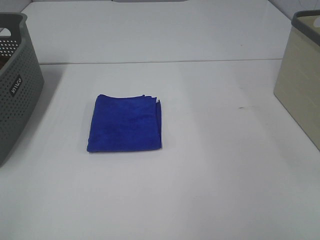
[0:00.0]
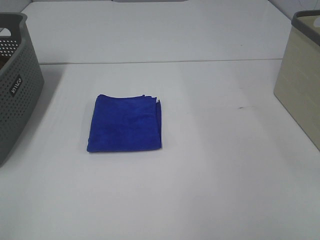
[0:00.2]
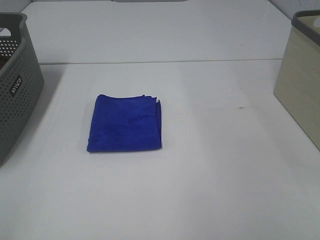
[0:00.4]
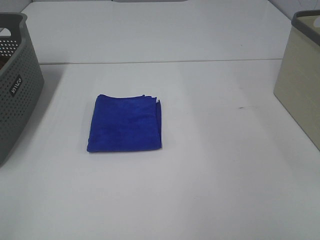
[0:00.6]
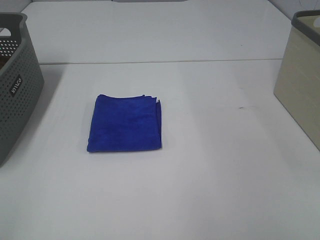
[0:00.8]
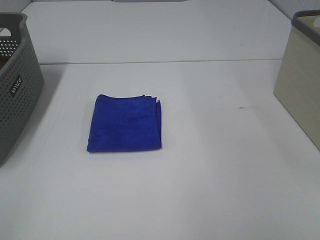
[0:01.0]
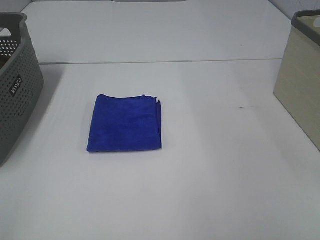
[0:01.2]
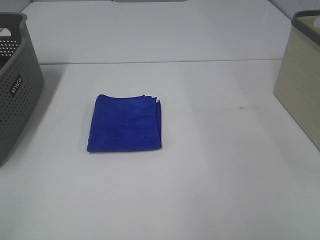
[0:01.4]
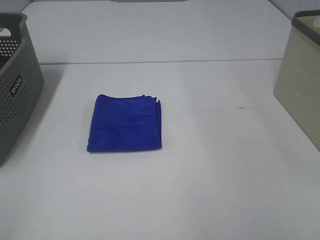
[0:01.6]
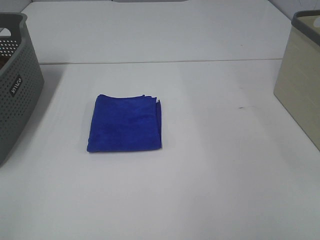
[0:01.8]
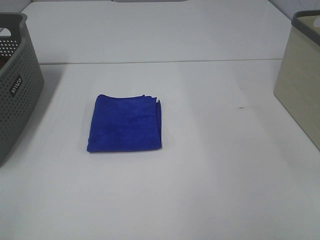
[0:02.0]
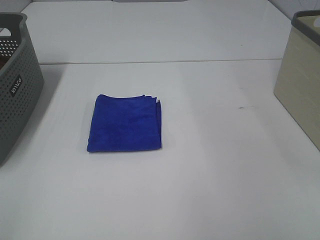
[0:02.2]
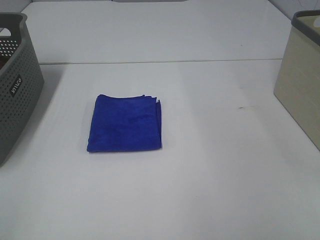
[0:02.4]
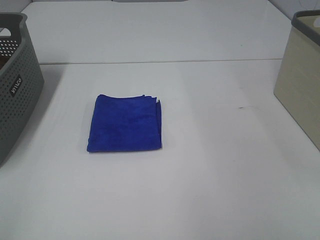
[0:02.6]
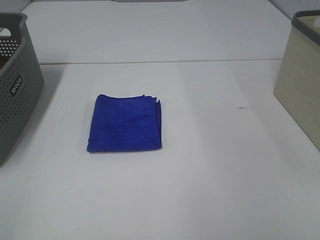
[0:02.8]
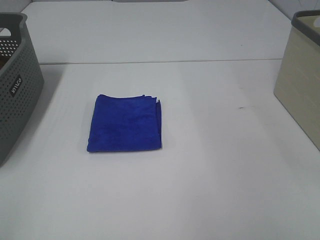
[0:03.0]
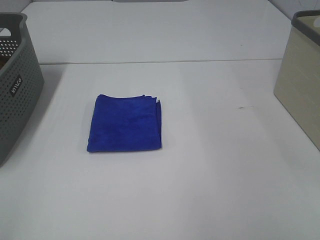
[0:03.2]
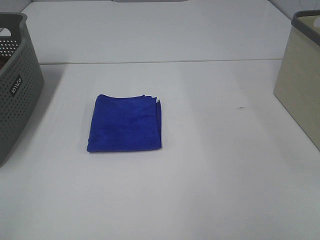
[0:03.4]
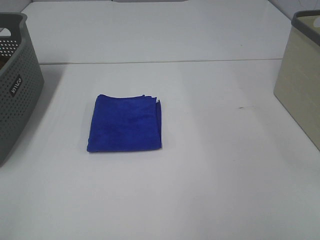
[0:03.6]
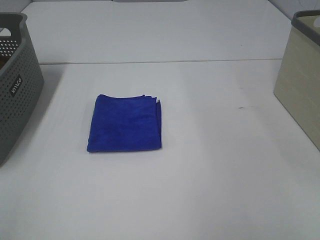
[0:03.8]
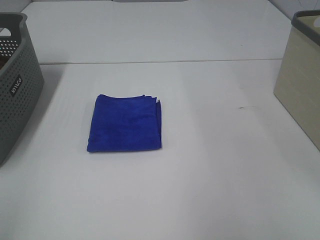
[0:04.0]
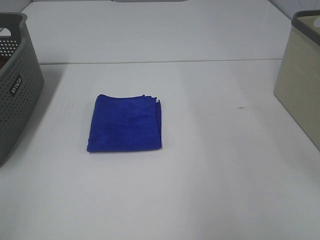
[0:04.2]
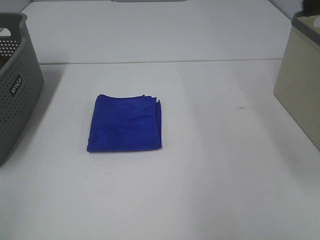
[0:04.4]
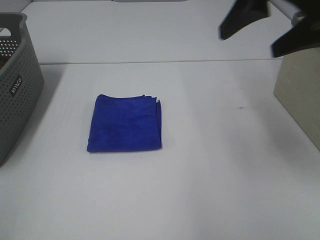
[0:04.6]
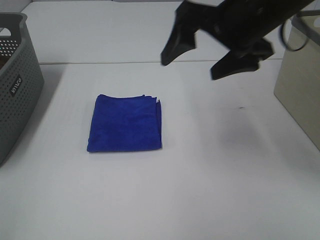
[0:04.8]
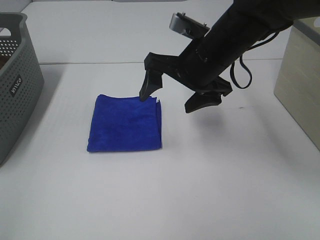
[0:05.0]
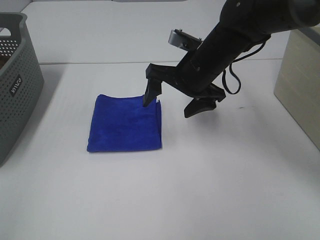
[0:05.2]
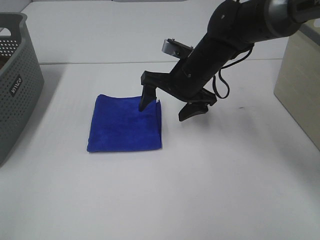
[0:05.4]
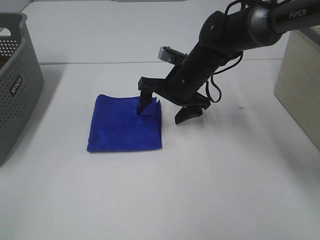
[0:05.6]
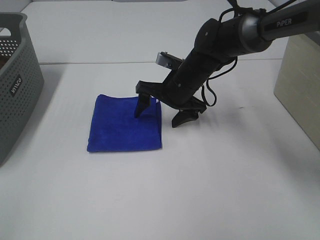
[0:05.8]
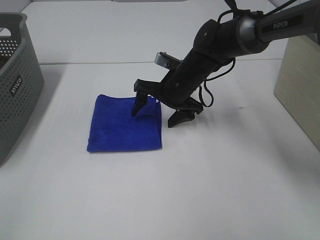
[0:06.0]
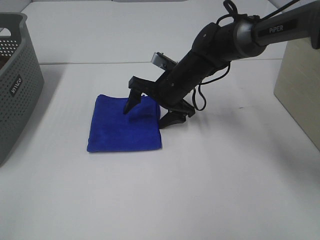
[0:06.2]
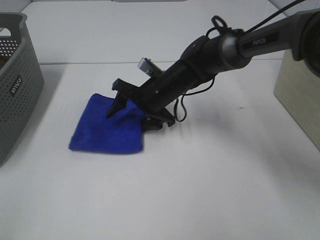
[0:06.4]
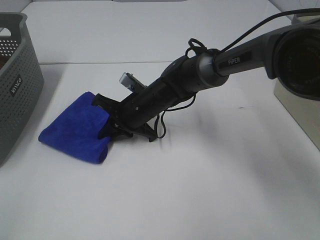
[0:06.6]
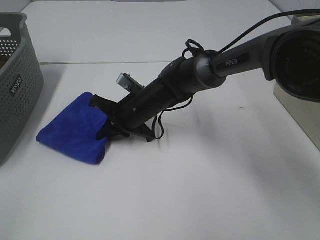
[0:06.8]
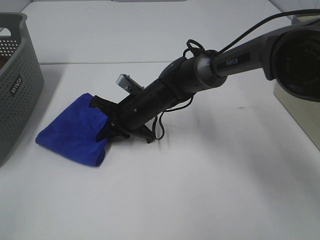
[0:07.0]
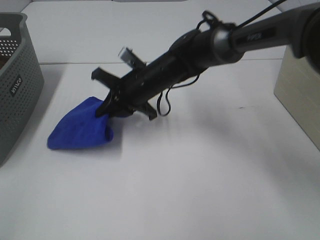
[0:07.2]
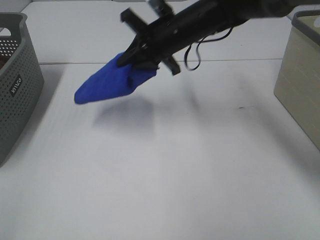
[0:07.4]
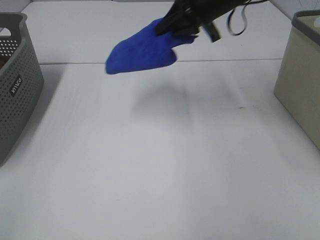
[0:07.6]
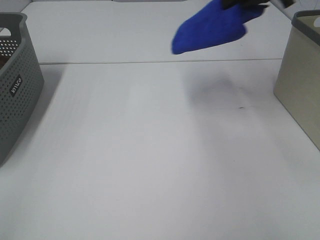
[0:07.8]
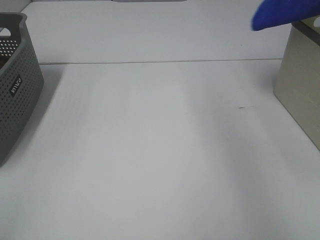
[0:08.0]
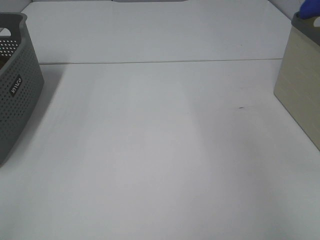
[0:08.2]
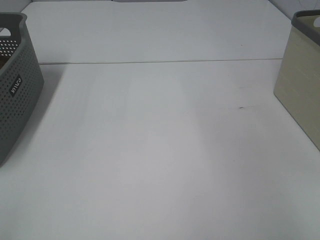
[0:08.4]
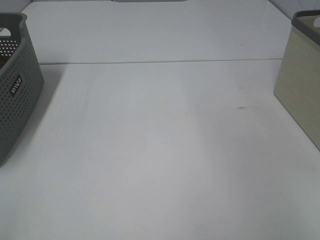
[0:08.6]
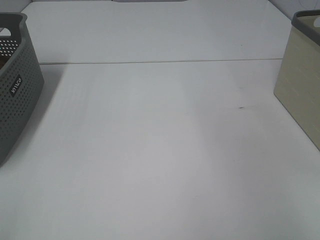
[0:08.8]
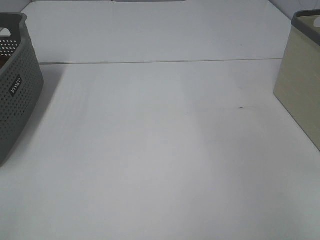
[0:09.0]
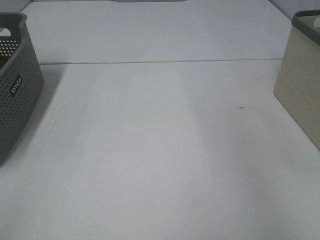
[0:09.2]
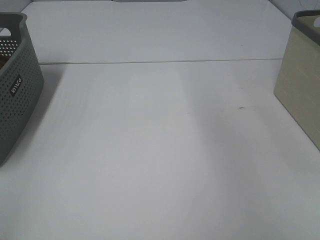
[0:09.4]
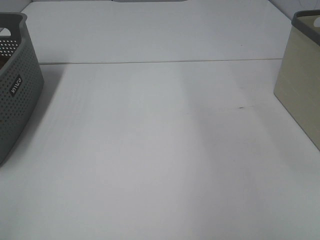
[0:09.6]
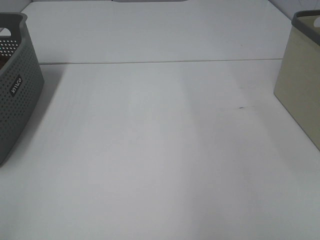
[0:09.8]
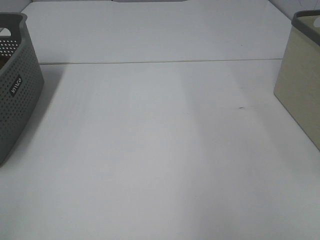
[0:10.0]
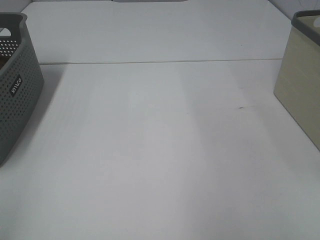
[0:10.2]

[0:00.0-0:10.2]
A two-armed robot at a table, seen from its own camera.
Step, 0:00.0 to 0:06.6: Right hand: grab the folded blue towel.
Step, 0:06.8 to 0:09.0: Right hand: place the blue towel in right basket.
0:00.0 to 0:03.0: Both grippers stay put.
0:04.4 to 0:05.8: The right gripper is displaced downward, to the left and forward by roughly 35 cm.
0:05.8 to 0:07.2: The right gripper travels to the left by some 5 cm, and closes its fingers.
0:07.2 to 0:08.8: The right gripper moves to the right and upward, some 50 cm, and opens up.

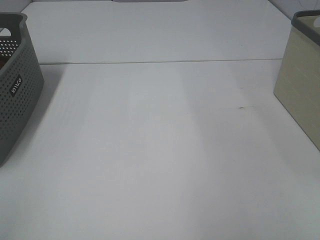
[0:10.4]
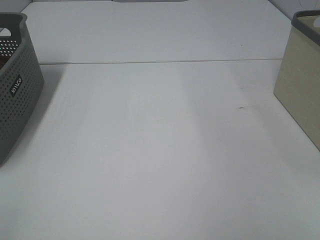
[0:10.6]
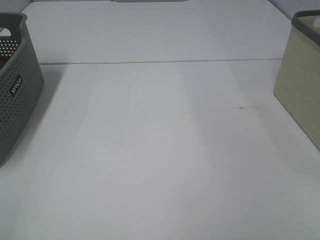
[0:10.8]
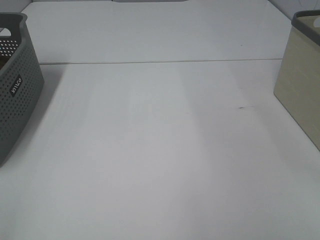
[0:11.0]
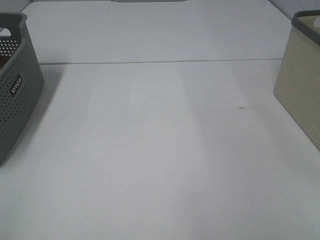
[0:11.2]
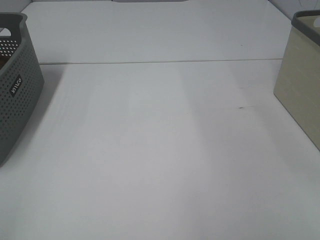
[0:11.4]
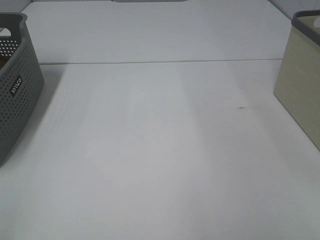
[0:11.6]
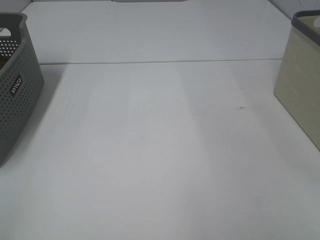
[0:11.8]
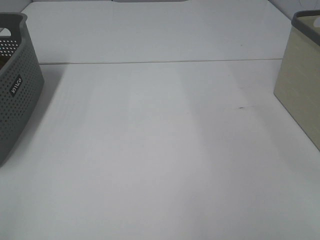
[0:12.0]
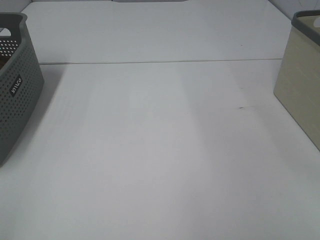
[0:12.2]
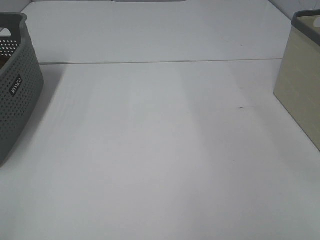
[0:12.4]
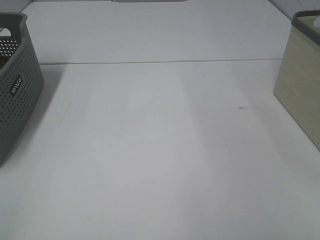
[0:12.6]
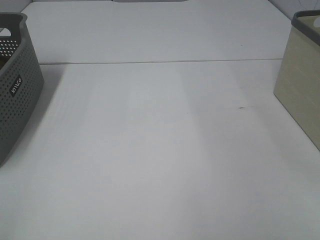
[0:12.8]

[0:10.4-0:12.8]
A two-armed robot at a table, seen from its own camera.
0:11.6 to 0:12.8: Both grippers stay about where they are.

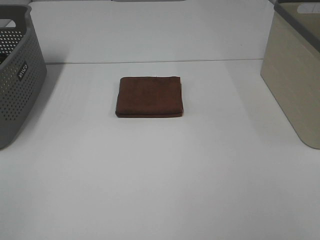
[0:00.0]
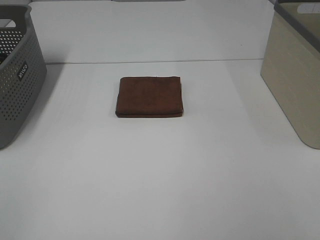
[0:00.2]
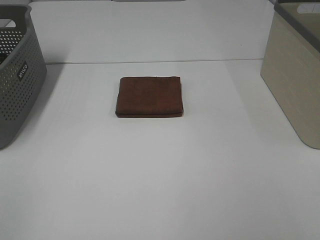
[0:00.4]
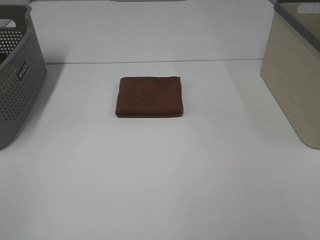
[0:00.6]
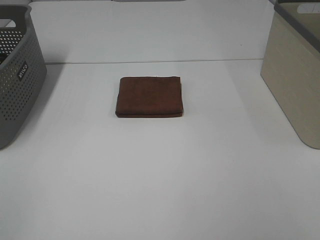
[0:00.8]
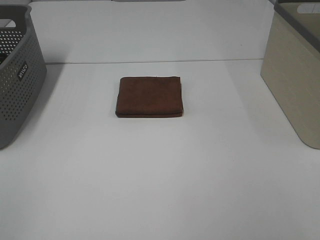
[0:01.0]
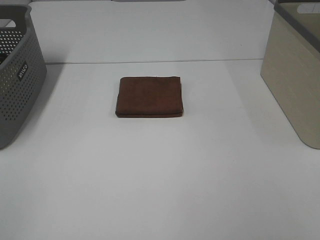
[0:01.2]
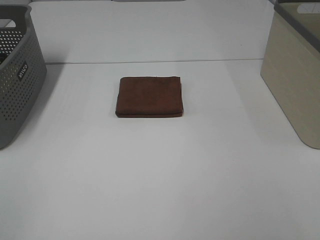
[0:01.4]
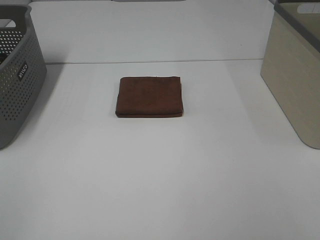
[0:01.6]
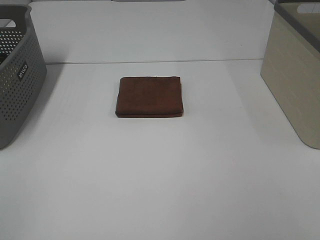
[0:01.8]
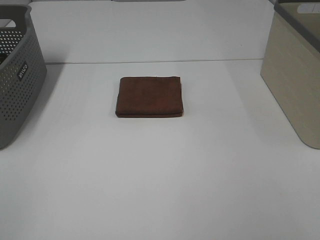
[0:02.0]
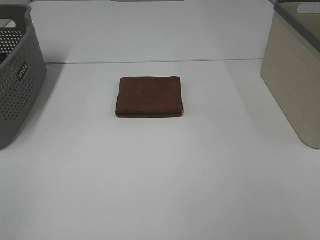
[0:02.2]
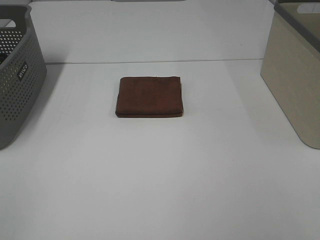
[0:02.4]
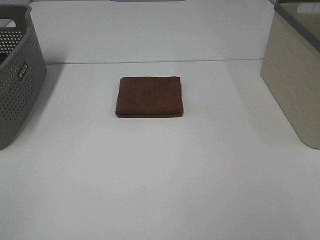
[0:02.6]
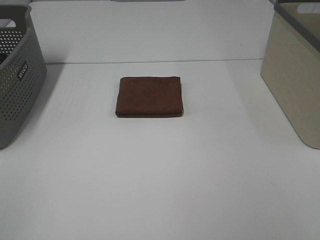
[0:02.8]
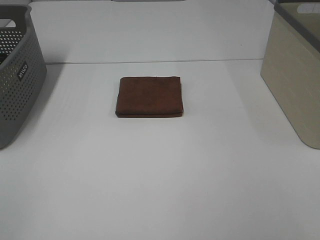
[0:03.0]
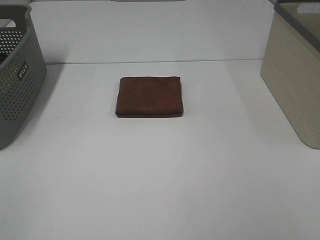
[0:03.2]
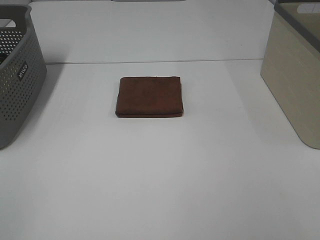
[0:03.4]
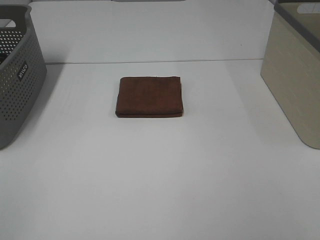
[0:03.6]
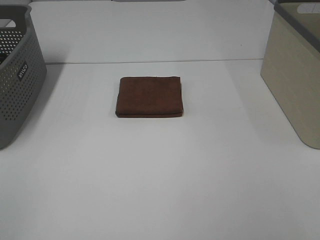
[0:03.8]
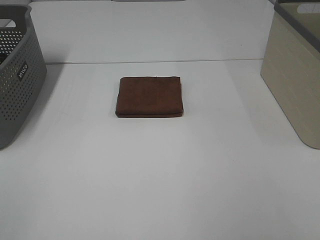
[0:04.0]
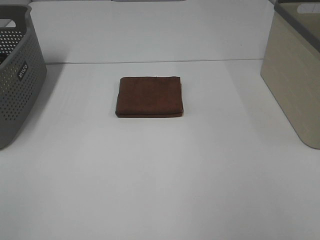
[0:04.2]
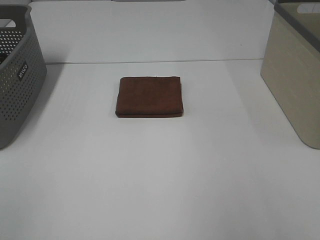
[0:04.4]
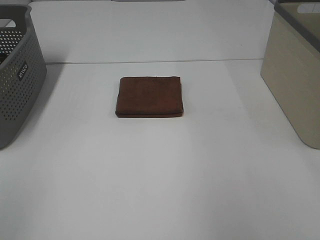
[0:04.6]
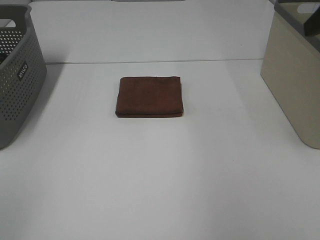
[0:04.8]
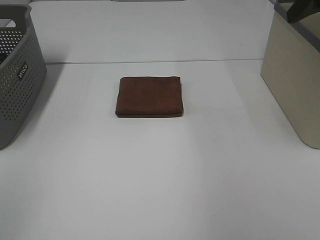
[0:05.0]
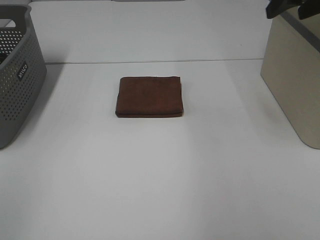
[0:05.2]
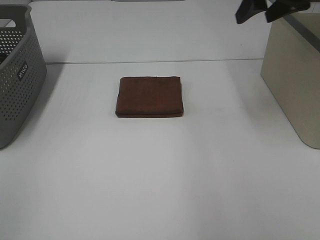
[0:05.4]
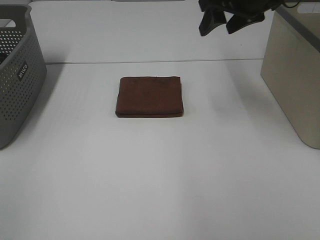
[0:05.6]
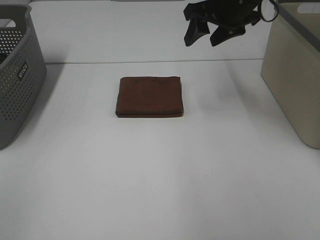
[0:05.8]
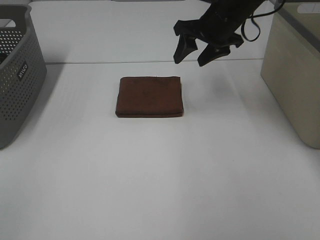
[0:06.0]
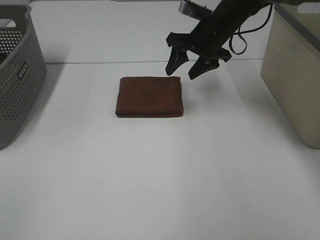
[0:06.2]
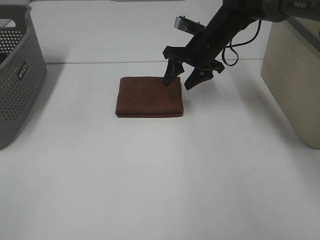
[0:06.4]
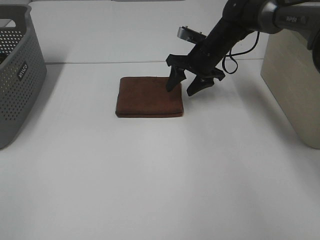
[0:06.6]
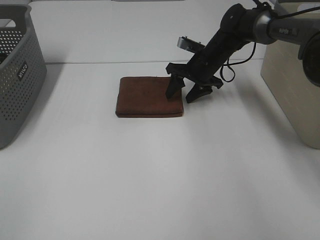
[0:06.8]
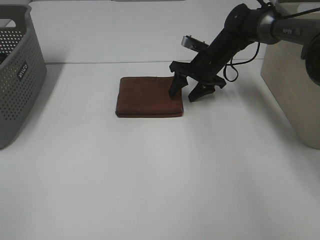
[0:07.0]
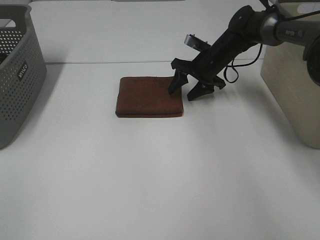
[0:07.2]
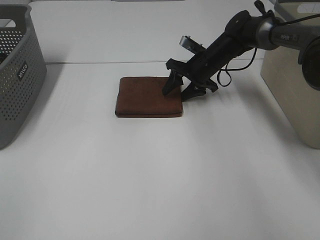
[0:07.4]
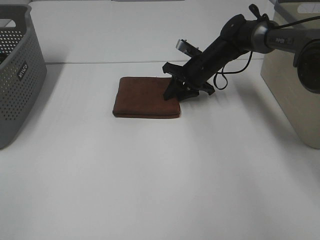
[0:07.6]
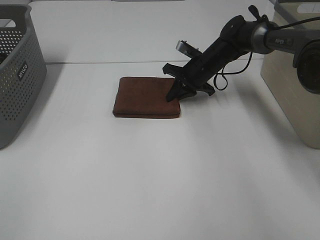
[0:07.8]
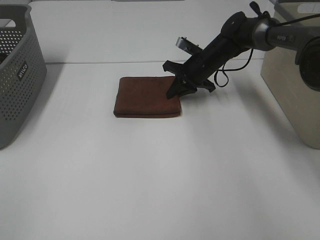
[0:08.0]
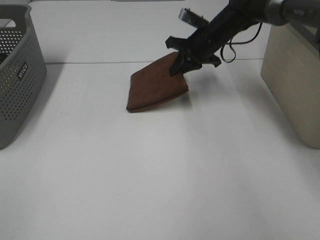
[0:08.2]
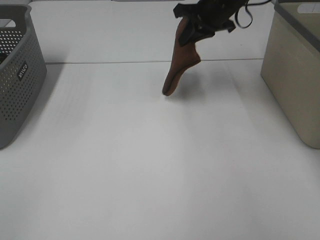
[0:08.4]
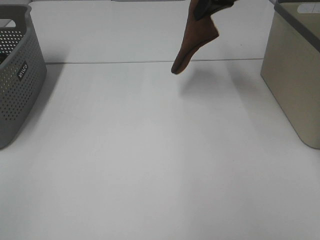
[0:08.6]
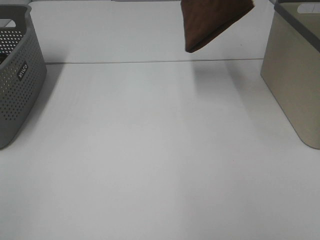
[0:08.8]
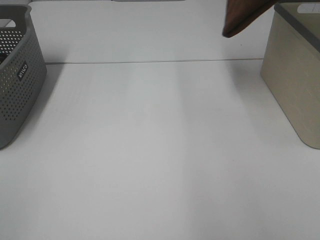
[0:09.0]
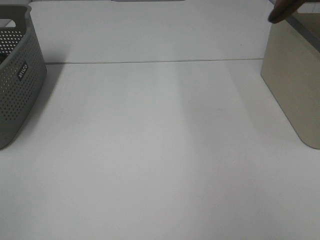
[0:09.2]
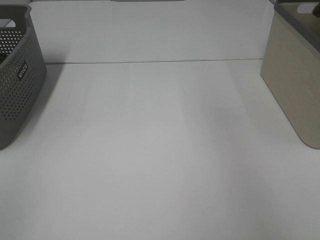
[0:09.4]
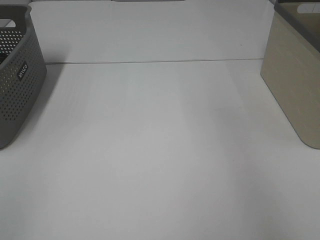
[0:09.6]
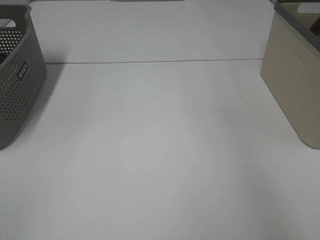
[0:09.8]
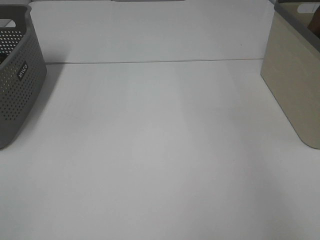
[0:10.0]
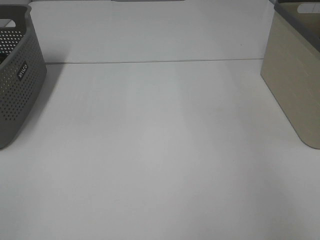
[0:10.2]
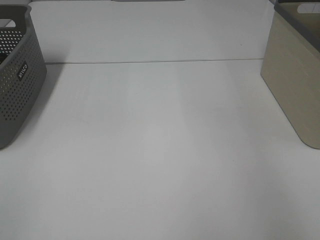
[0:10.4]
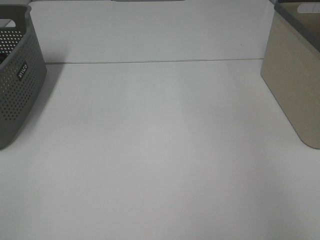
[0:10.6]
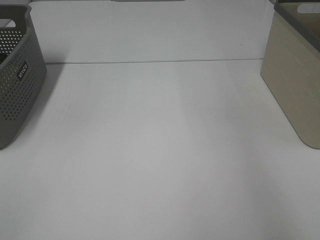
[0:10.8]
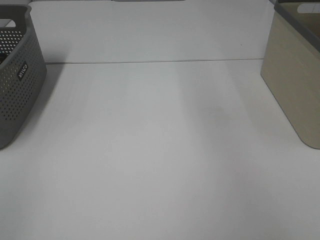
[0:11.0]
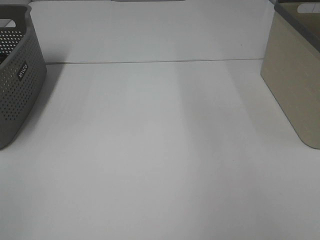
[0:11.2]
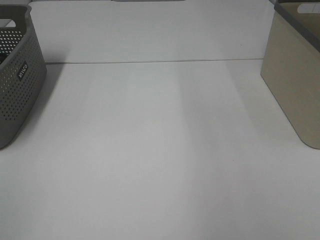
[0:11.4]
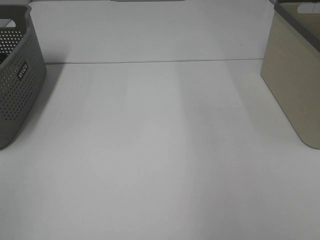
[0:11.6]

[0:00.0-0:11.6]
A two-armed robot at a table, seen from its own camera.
Step, 0:00.0 to 0:07.8: Right hand: grab the folded brown towel.
Step, 0:08.0 to 0:10.6: Right hand: place the brown towel in right basket.
0:00.0 to 0:02.8: Both grippers stay put.
0:04.4 to 0:05.8: The right gripper travels forward and to the left by some 35 cm.
0:05.8 to 0:07.2: The right gripper goes some 20 cm downward and forward.
0:07.2 to 0:08.8: The right gripper travels upward by some 30 cm, and closes its fingers.
0:08.8 to 0:10.2: The right gripper travels to the right by approximately 20 cm.
